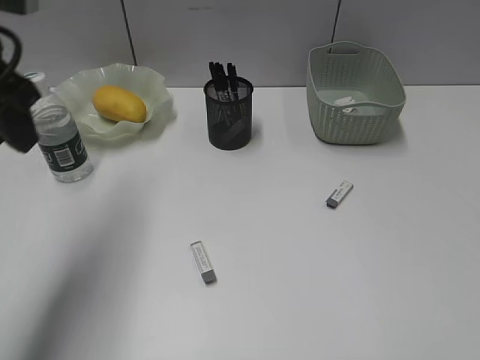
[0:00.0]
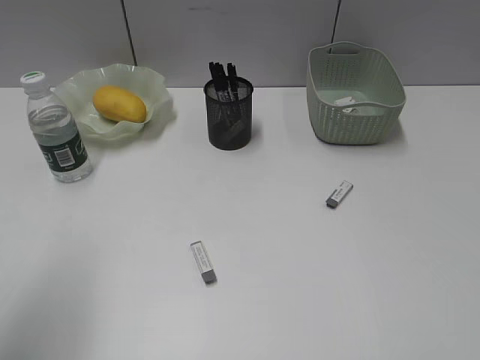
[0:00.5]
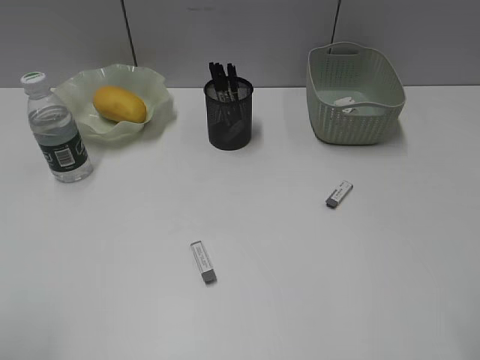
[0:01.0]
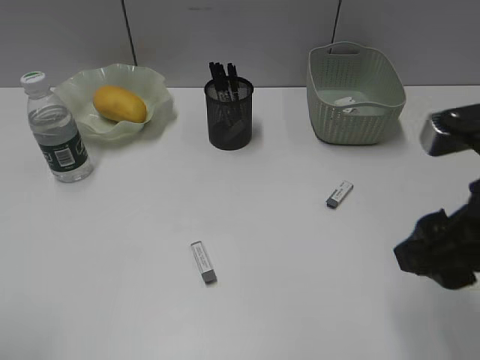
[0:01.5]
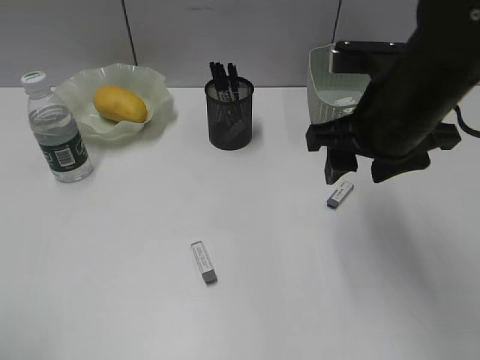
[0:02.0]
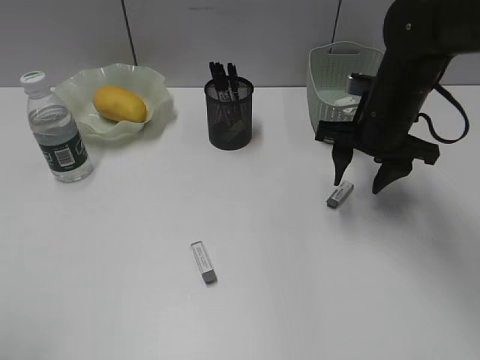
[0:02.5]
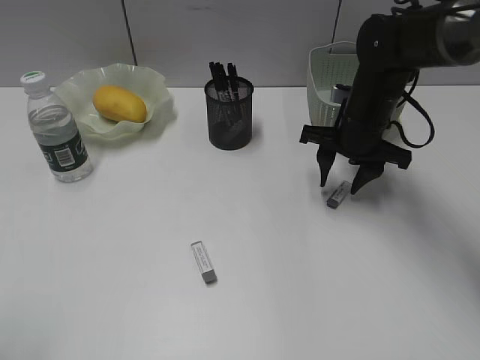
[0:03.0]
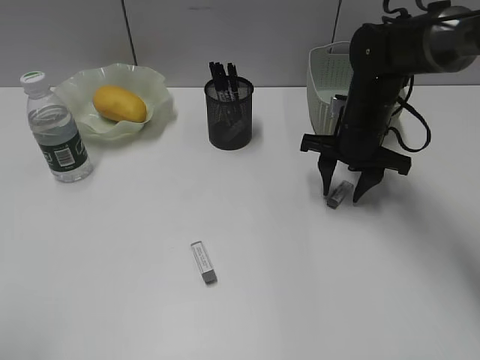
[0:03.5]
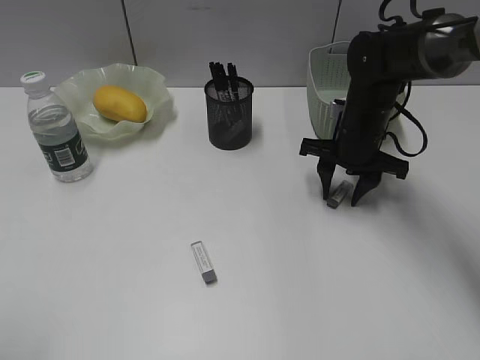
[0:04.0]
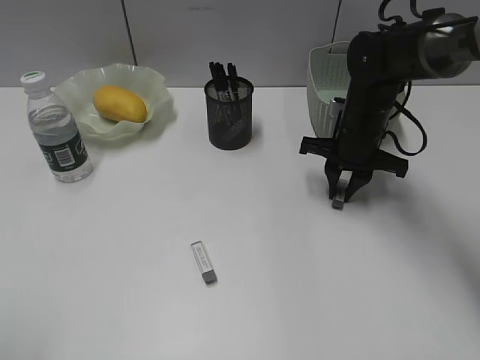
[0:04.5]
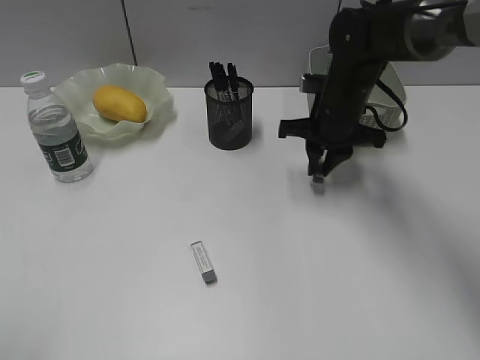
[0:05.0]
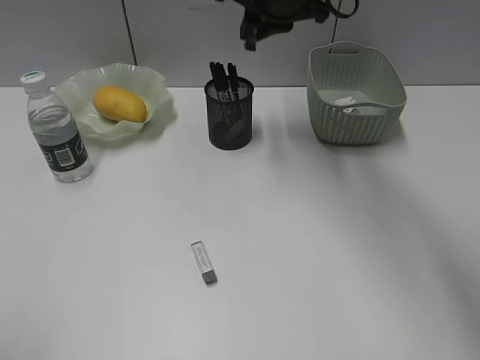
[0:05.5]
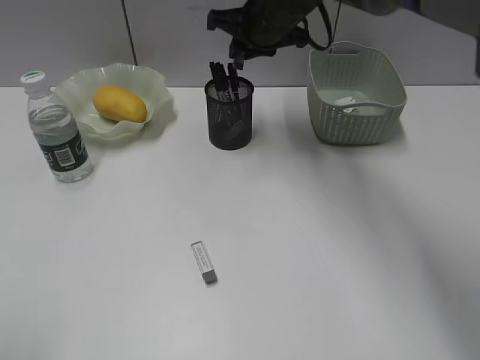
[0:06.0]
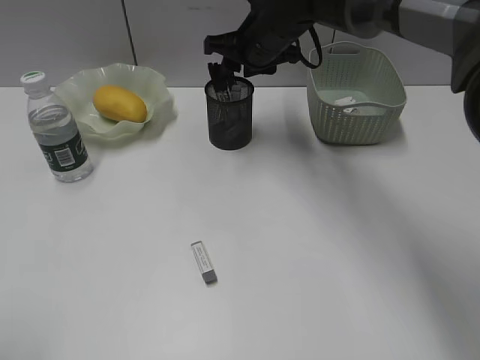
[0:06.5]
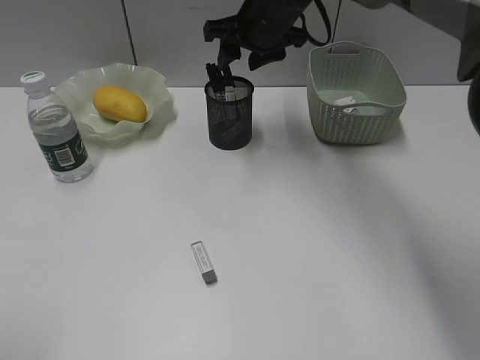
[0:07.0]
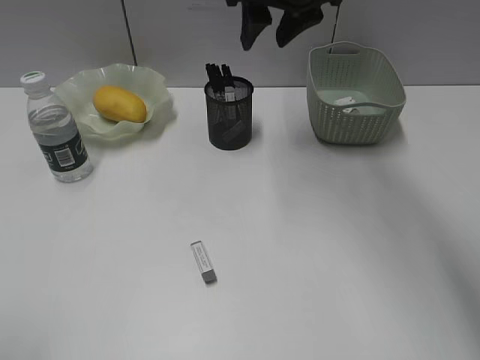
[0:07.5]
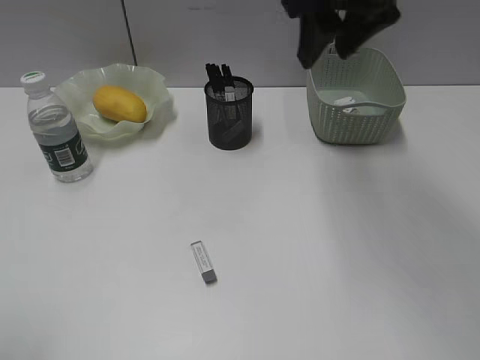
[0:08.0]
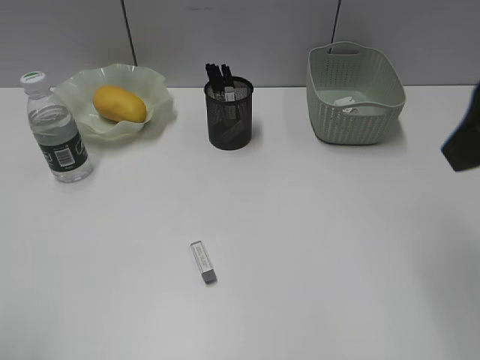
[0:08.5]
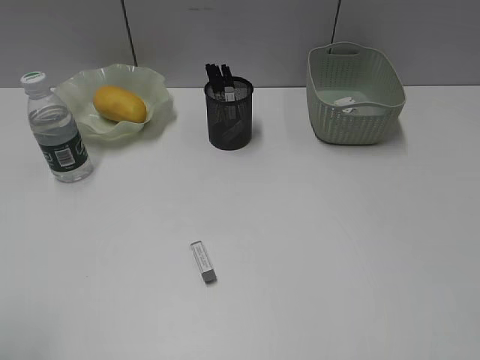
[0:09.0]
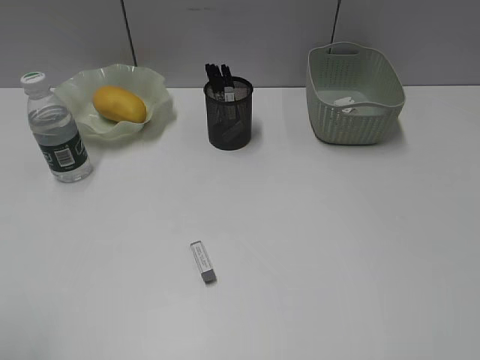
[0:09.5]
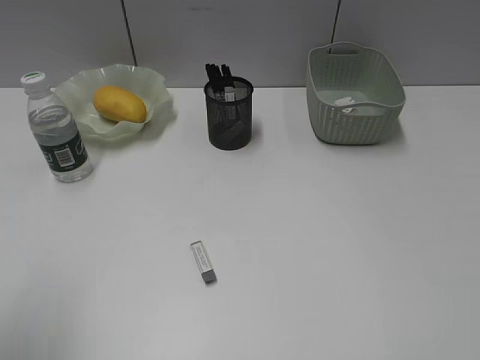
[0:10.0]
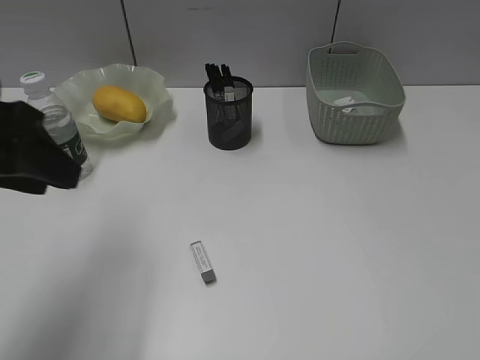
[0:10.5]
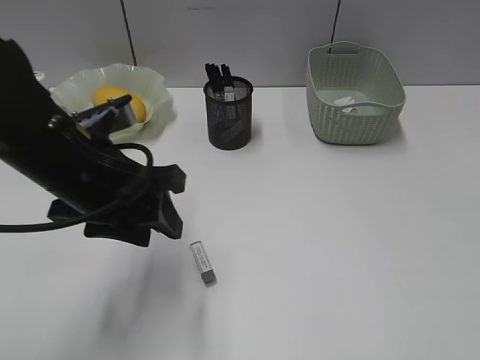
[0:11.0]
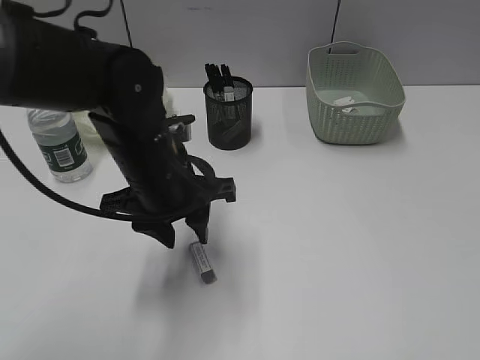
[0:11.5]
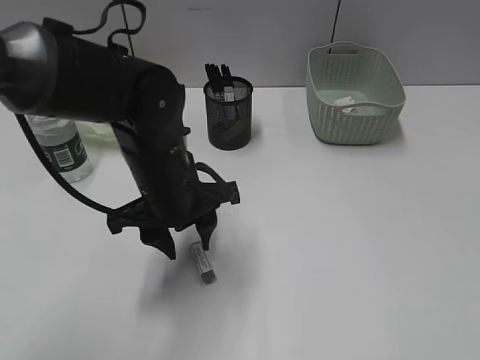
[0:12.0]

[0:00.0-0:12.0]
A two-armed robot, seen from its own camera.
Step, 0:00.0 to 0:04.5: Grasp the eraser with right gripper.
Step, 0:05.0 to 0:07.0: Place the eraser in pen holder with right gripper.
0:00.0 to 0:02.0: The left gripper shifts roughly 25 cm backward. Meanwhile the right gripper is displaced forward and to the left by approximately 30 cm.
0:02.0 to 0:04.0: The right gripper heads downward and forward, covering some 15 cm.
0:04.0 to 0:06.0: The right gripper heads upward, to the left and forward, covering about 20 cm, and closes its fingers.
0:06.0 to 0:08.0: The right gripper travels backward, upward and to the right by some 20 cm, and opens its fingers.
0:08.0 to 0:10.0: The right gripper goes about 35 cm backward and to the right, while the left gripper goes about 5 cm forward.
0:10.0 to 0:12.0: The left gripper travels to the right, forward and downward by approximately 35 cm.

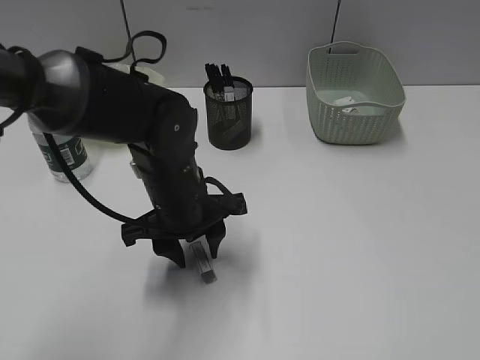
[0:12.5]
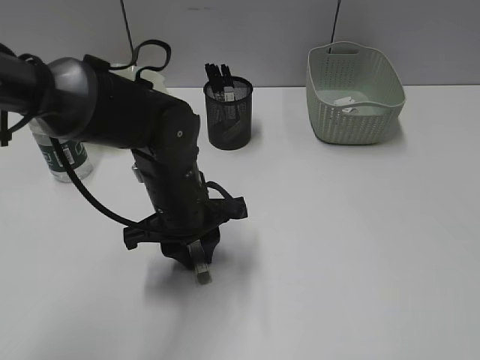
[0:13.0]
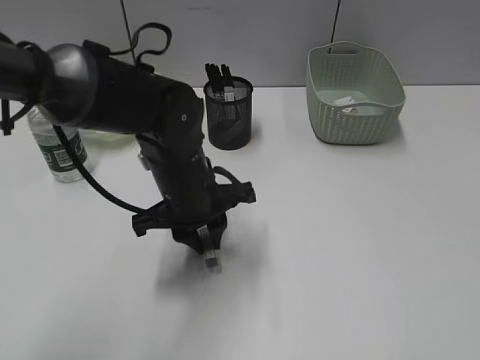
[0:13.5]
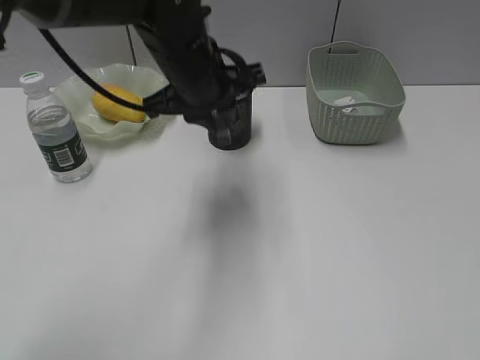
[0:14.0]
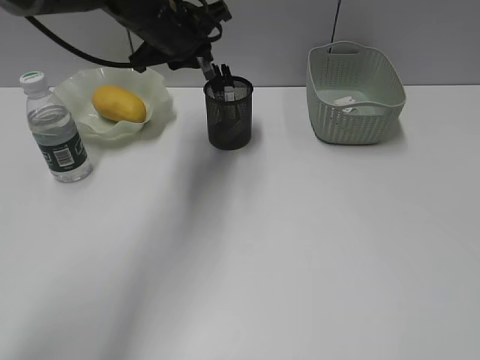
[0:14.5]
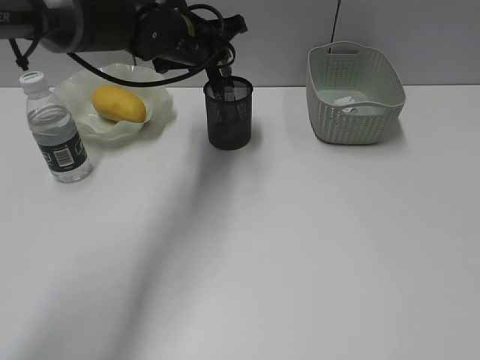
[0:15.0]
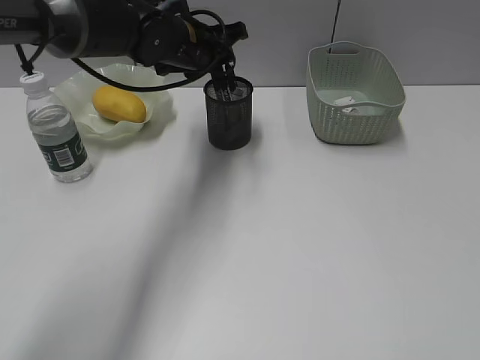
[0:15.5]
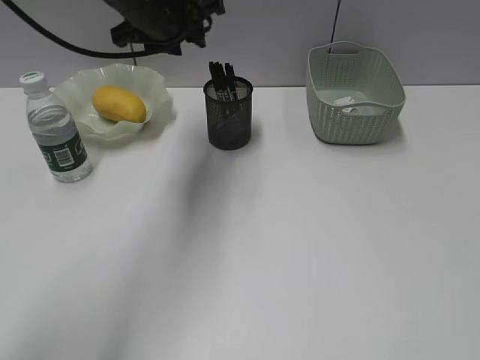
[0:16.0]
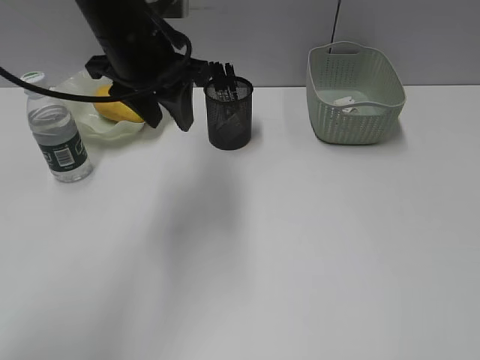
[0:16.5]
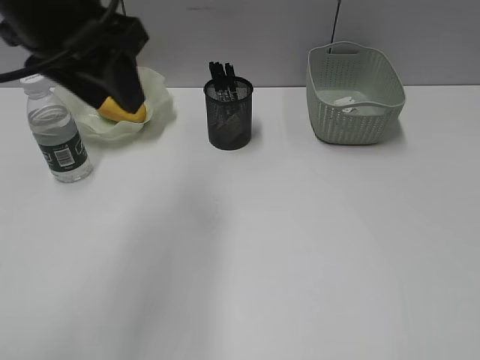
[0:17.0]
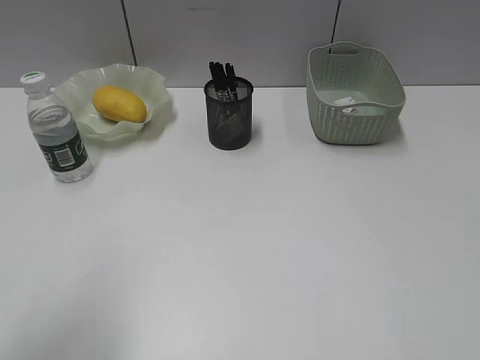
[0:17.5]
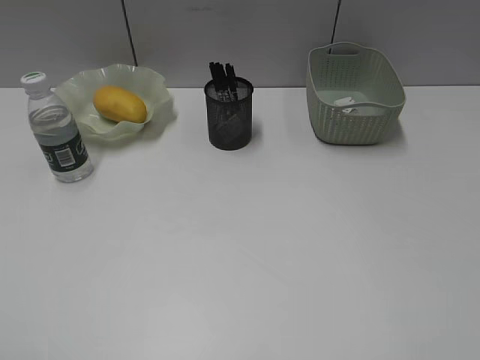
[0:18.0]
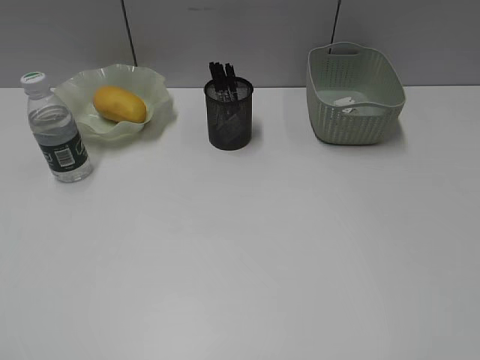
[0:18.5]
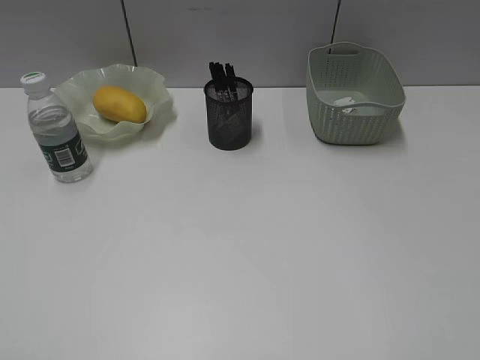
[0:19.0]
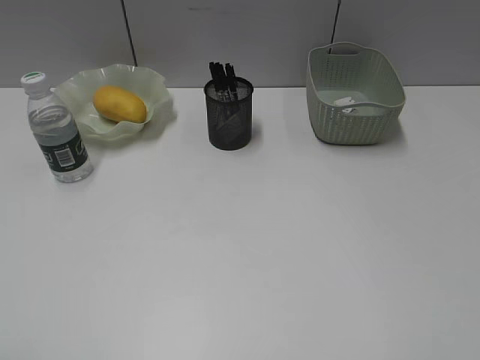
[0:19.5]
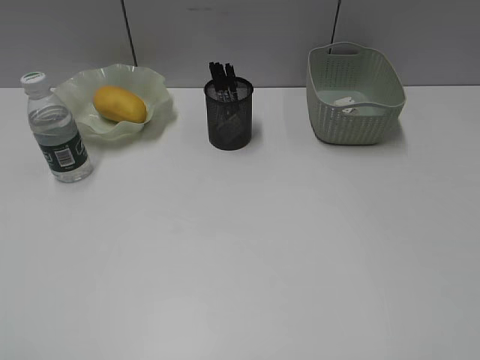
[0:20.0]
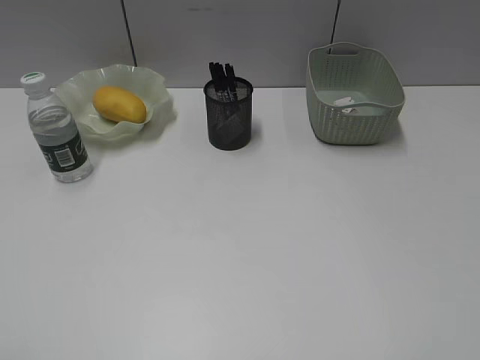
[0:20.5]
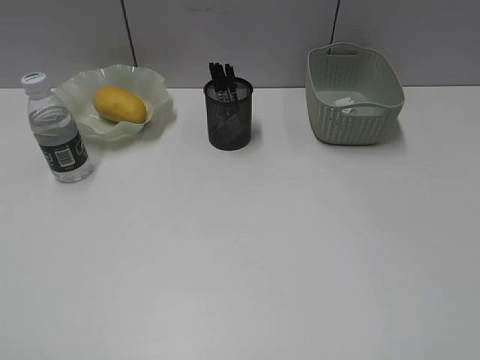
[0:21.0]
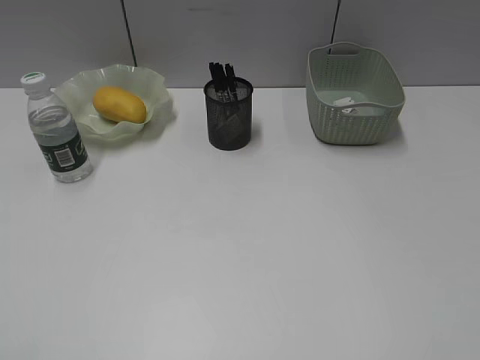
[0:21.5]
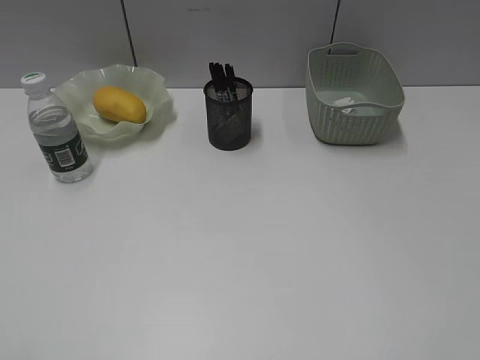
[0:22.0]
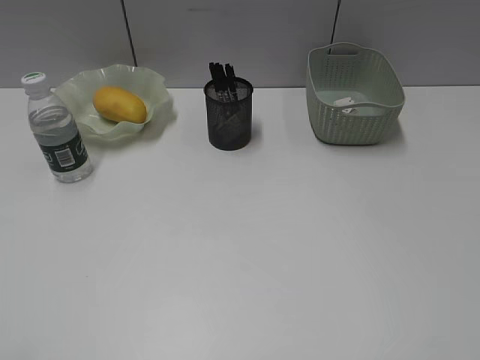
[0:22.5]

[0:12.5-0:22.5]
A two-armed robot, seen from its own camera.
Step, 0:13.5 to 0:15.5: Place the eraser in pen holder with left gripper.
0:12.5 to 0:14.5: The left gripper heads forward and upward, covering approximately 20 cm, and closes up.
0:14.5 to 0:16.5: The left gripper heads backward, covering approximately 10 cm, and opens its fingers.
0:16.5 to 0:18.5: The left gripper travels backward and to the left by approximately 40 cm.
